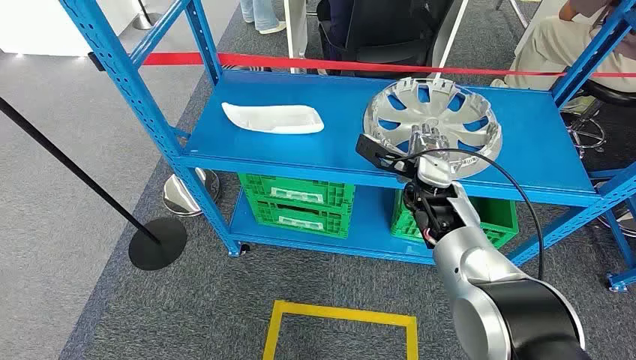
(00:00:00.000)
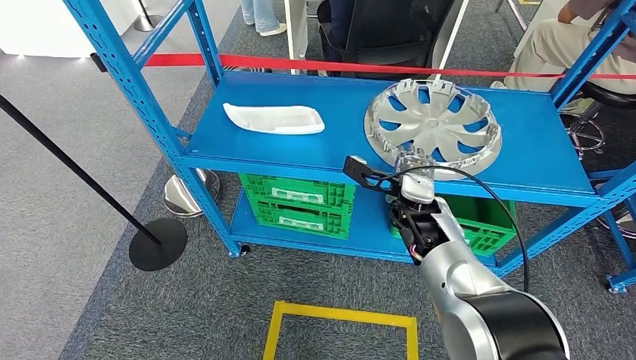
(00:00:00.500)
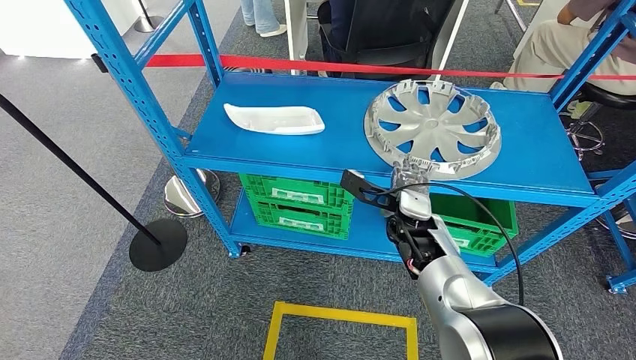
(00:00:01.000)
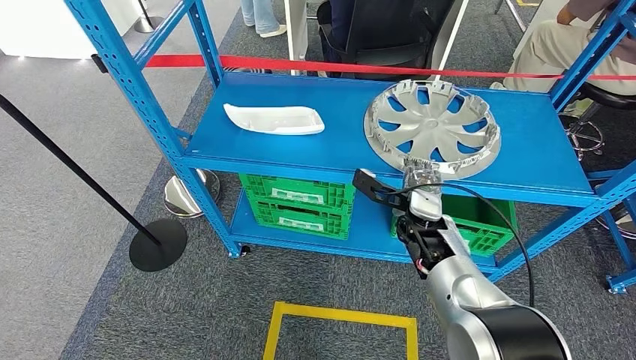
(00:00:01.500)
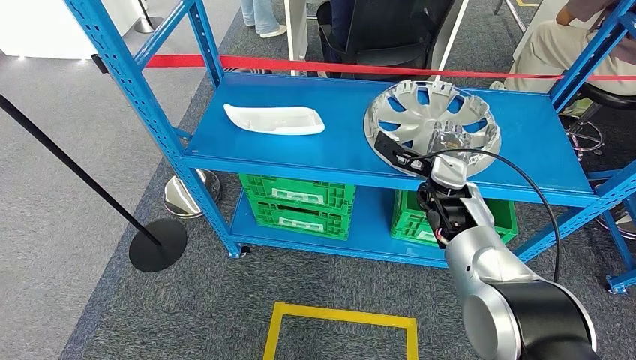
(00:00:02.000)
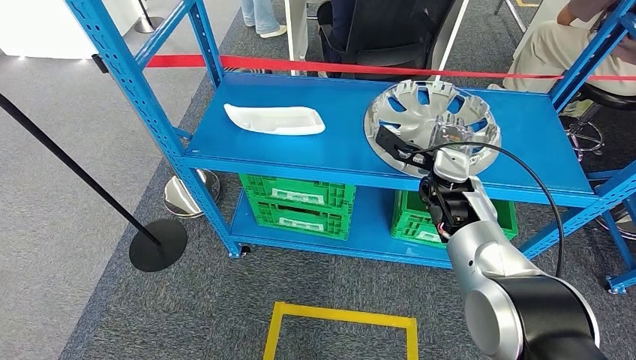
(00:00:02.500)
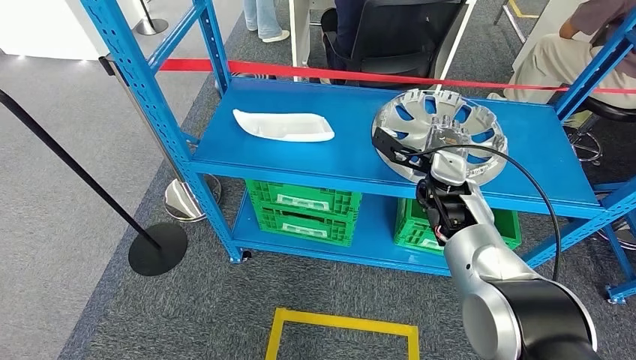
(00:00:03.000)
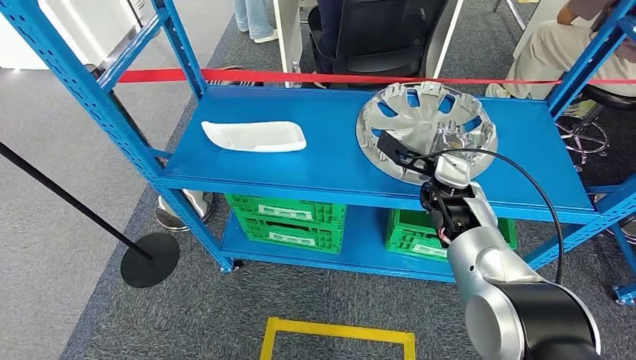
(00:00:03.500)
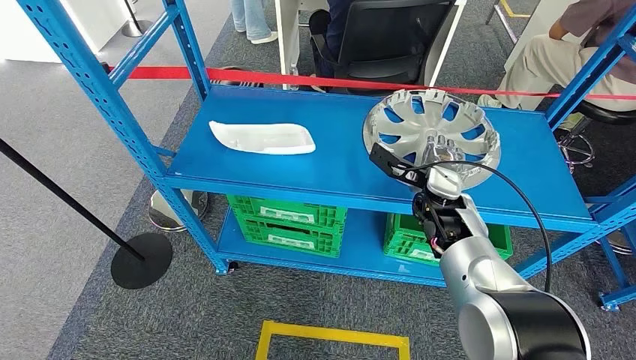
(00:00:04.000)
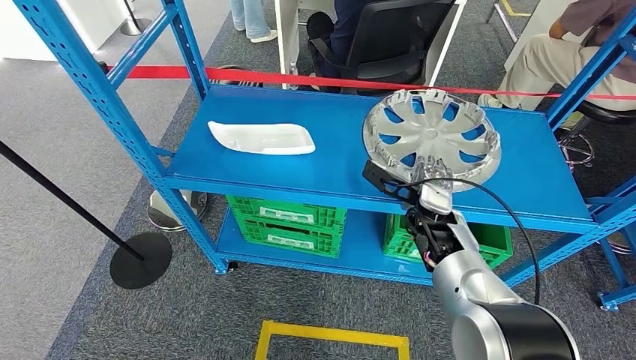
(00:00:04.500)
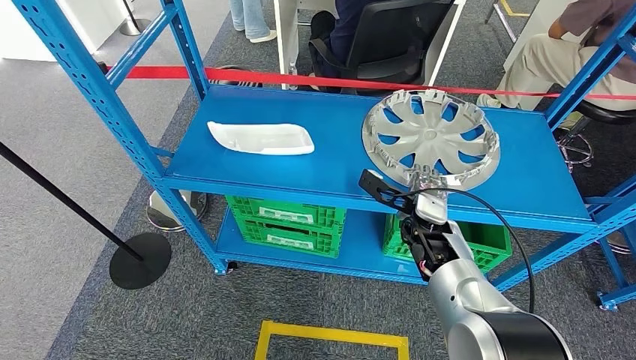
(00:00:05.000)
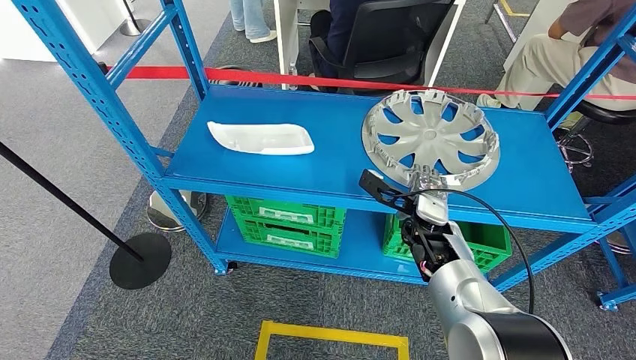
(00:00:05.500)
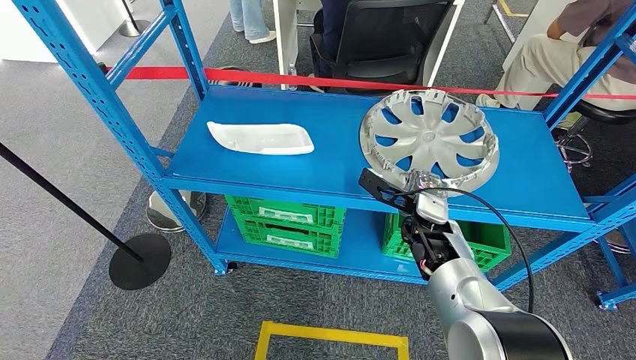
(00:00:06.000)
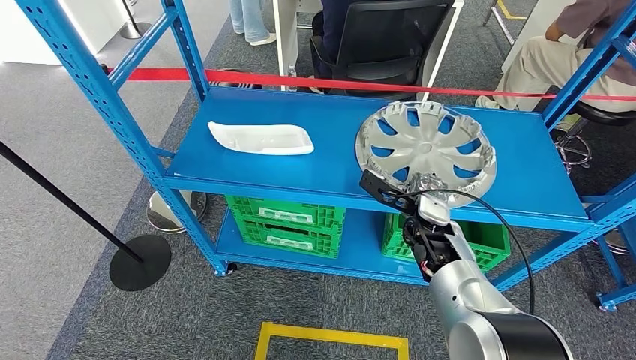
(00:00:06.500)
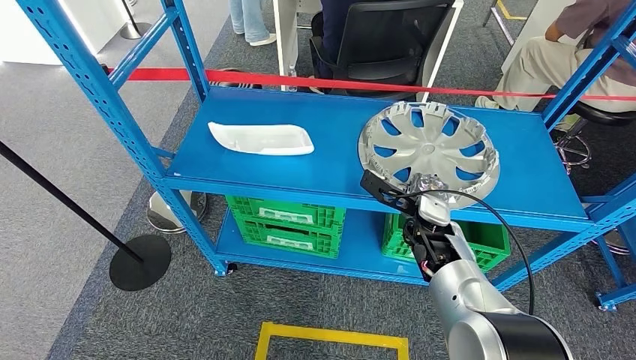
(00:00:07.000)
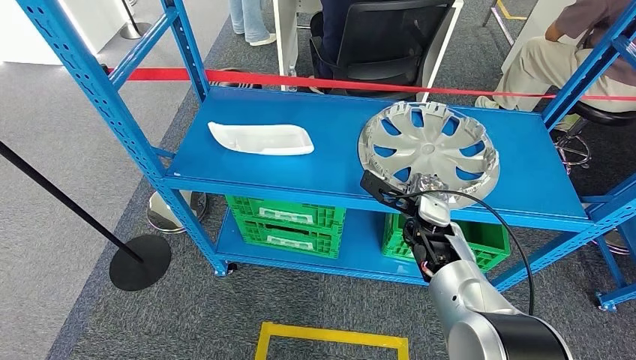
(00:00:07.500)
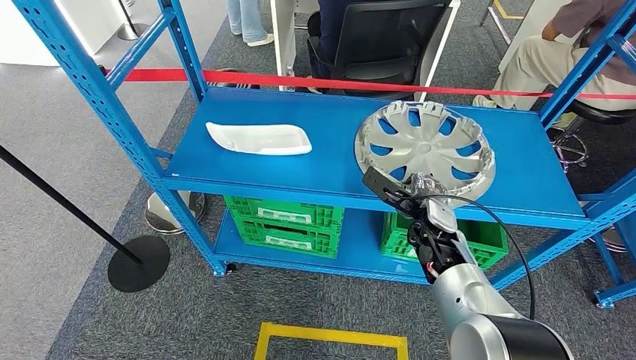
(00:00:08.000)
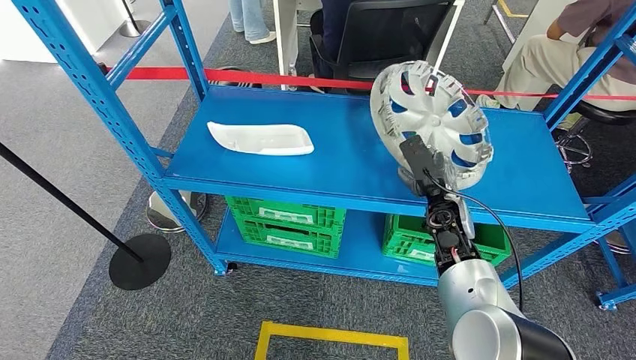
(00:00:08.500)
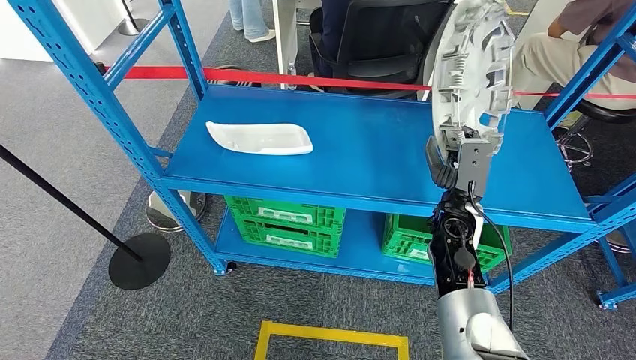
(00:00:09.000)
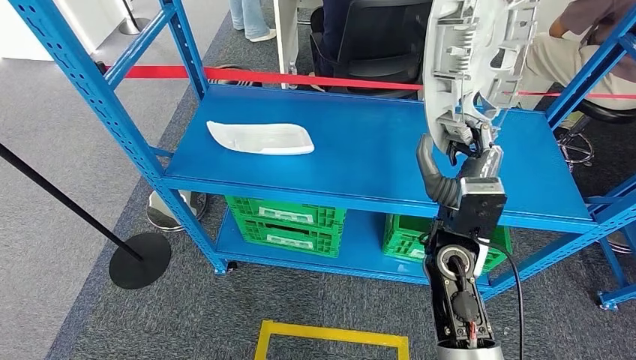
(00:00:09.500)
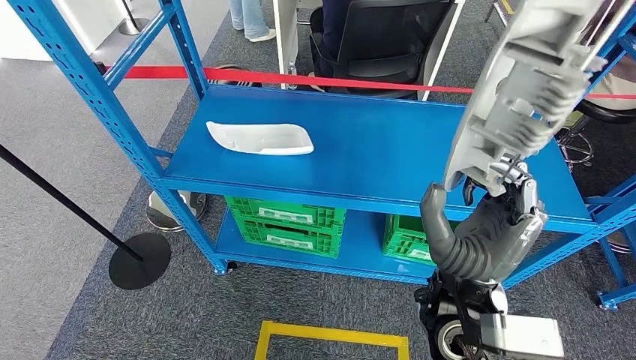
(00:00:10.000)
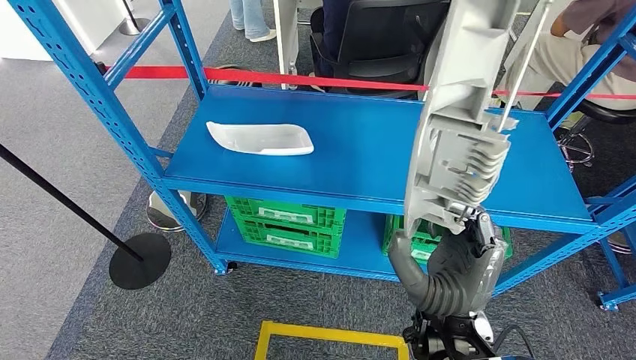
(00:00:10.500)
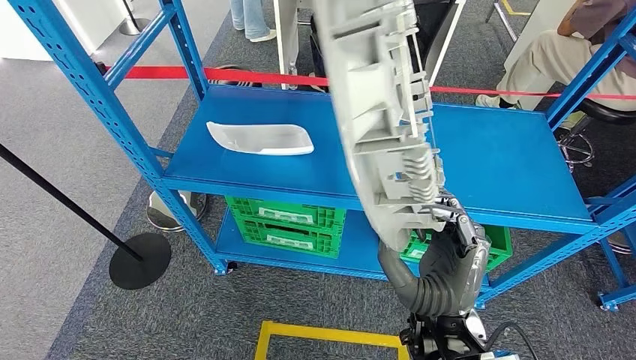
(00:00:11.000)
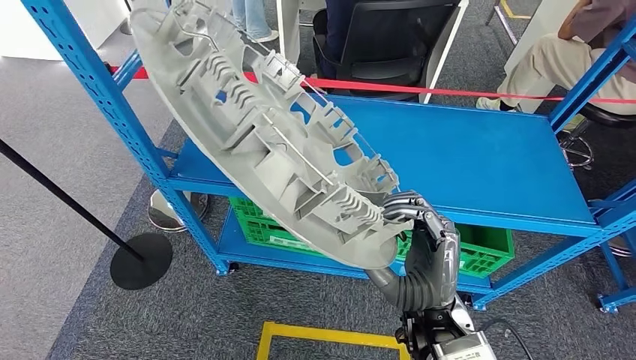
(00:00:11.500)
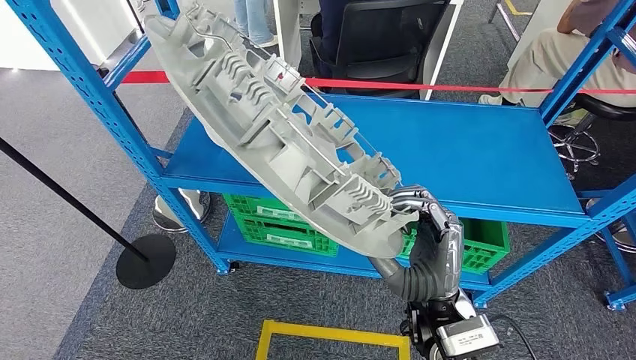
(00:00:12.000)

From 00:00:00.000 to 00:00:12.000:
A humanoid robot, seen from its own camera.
Step, from 00:00:00.000 to 00:00:11.000: Pick up the large material from the shelf.
From 00:00:04.000 to 00:00:06.000: The right hand moves roughly 5 cm.
From 00:00:06.000 to 00:00:08.000: The hands make only small movements.

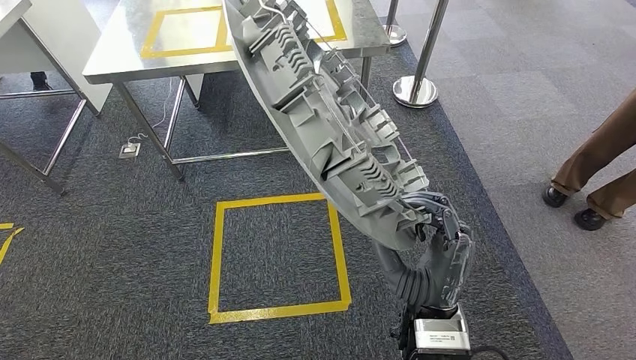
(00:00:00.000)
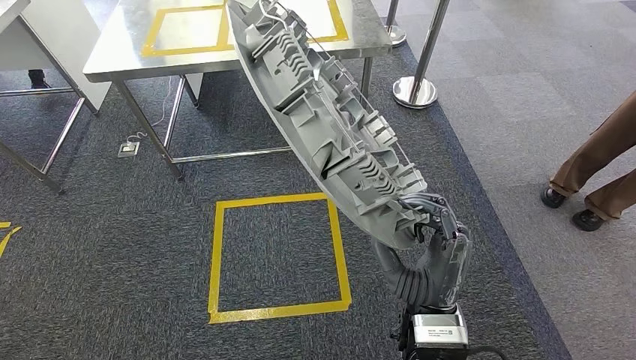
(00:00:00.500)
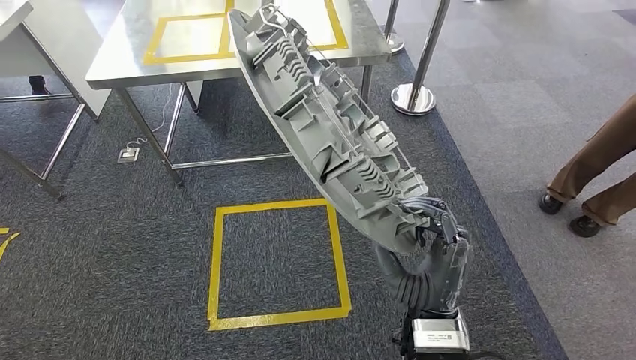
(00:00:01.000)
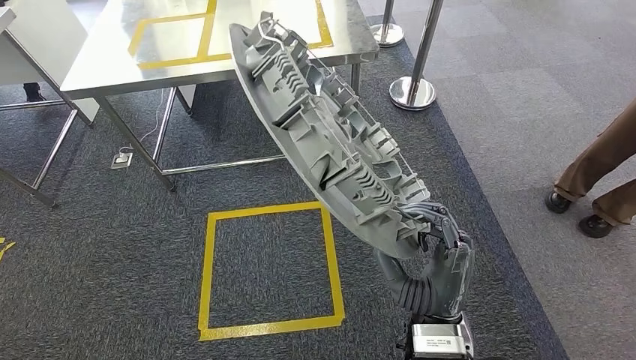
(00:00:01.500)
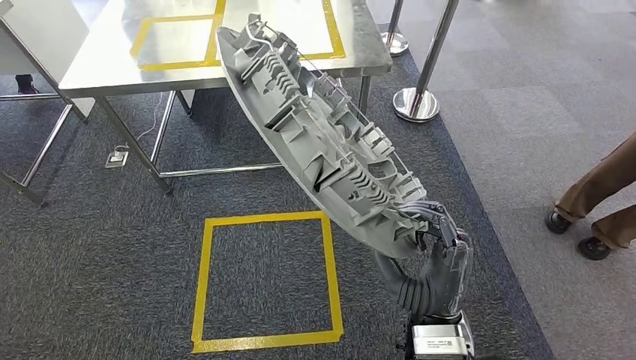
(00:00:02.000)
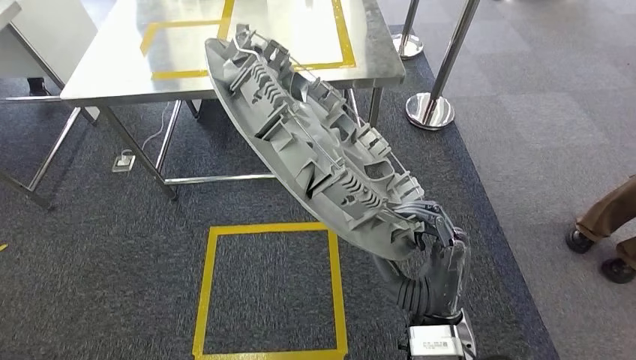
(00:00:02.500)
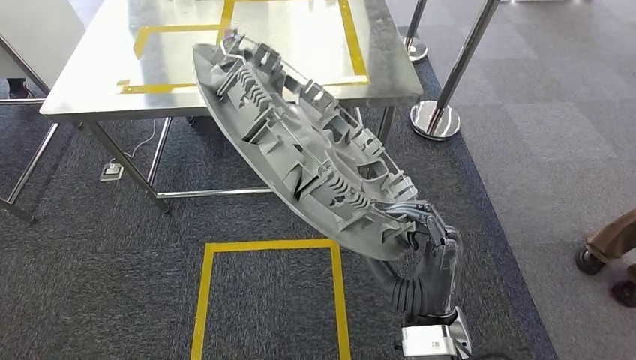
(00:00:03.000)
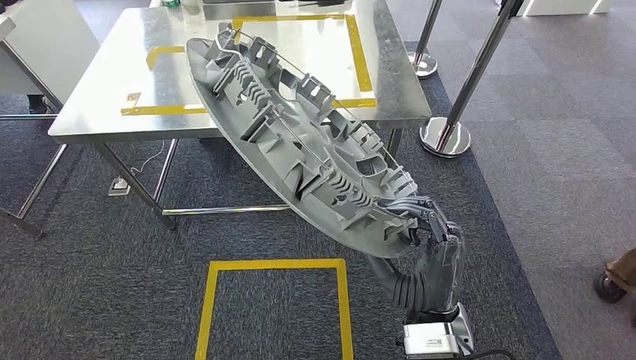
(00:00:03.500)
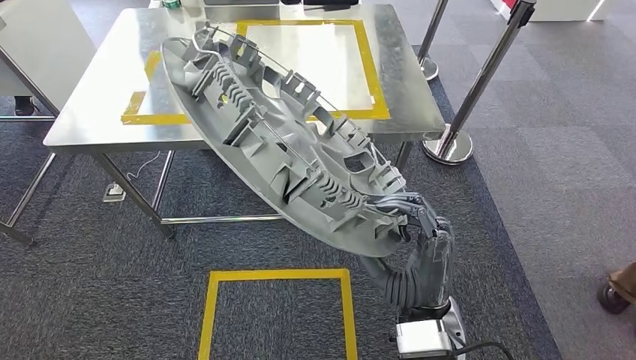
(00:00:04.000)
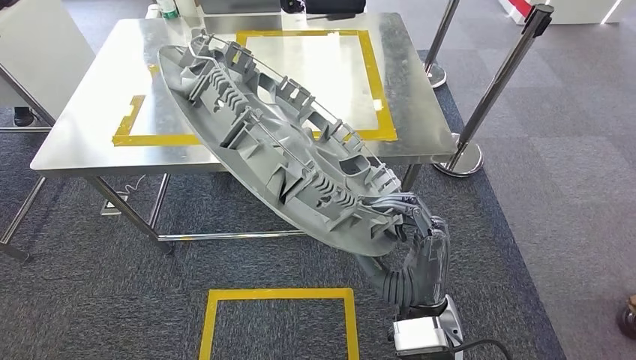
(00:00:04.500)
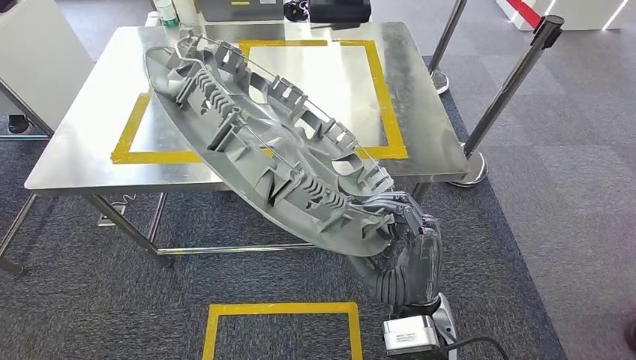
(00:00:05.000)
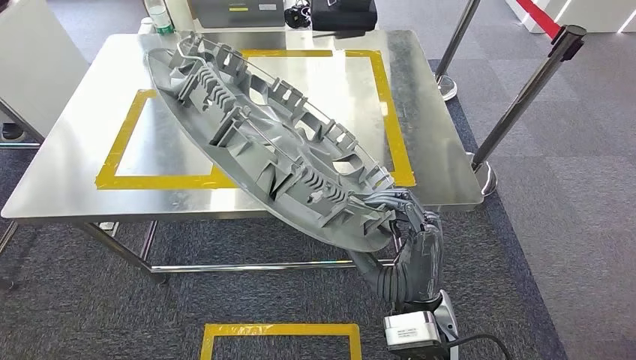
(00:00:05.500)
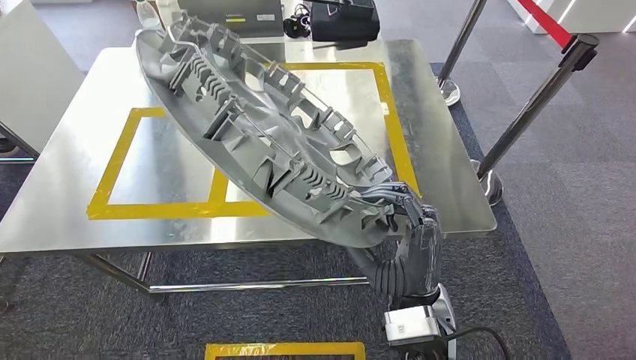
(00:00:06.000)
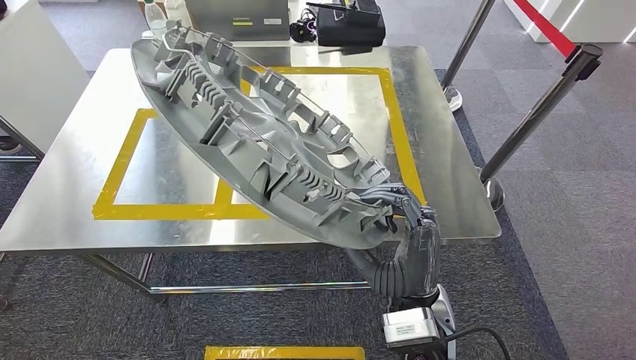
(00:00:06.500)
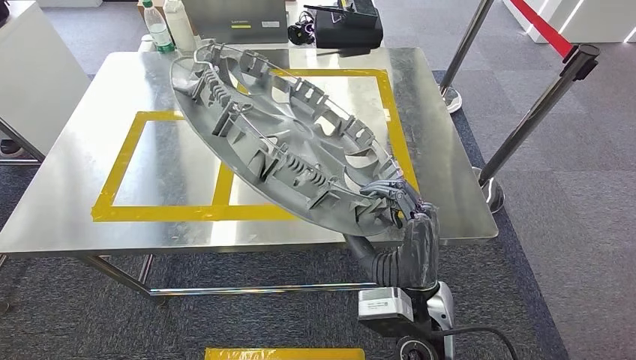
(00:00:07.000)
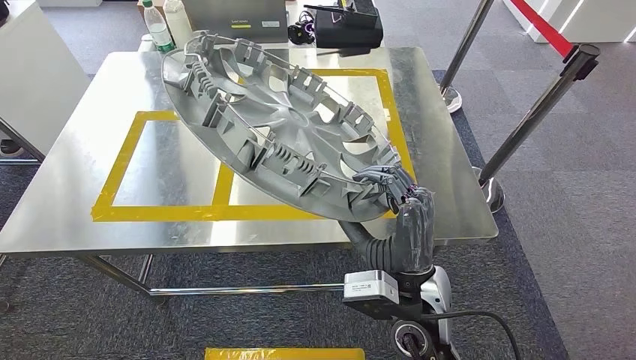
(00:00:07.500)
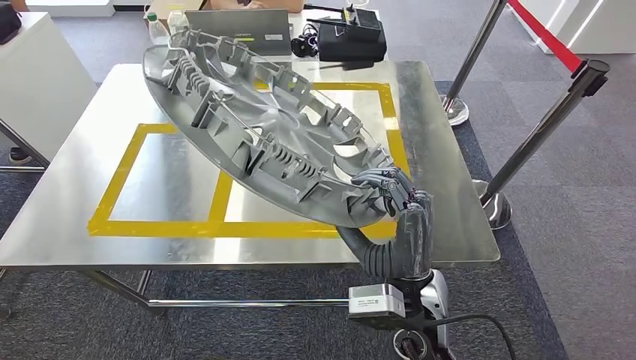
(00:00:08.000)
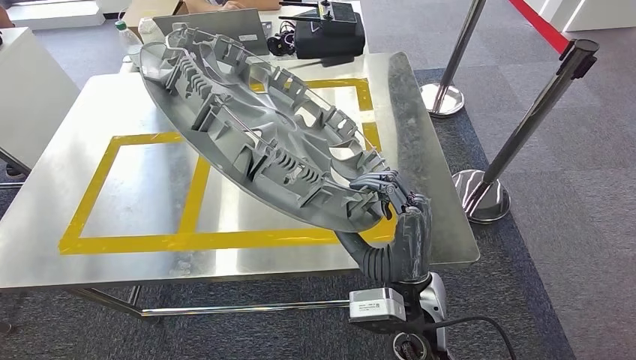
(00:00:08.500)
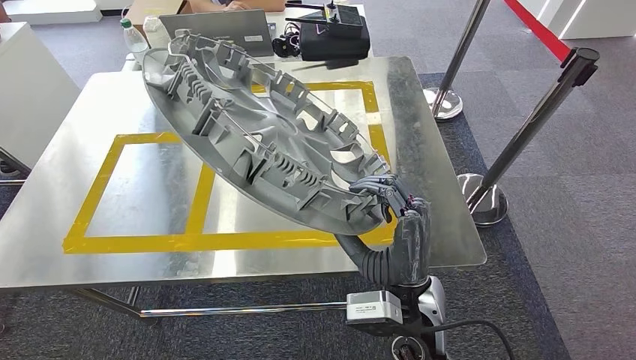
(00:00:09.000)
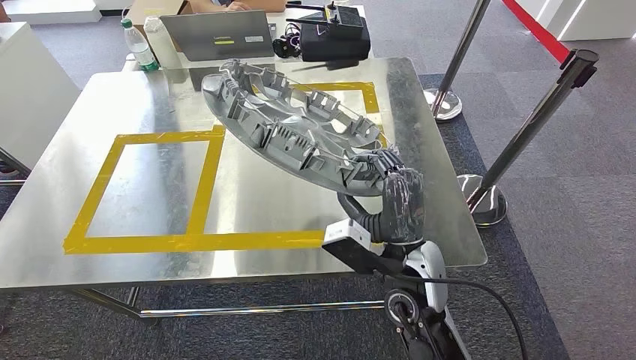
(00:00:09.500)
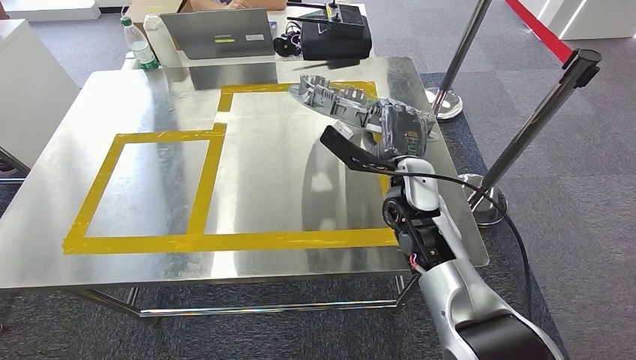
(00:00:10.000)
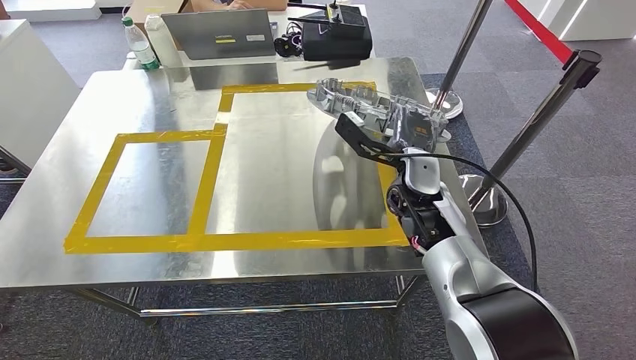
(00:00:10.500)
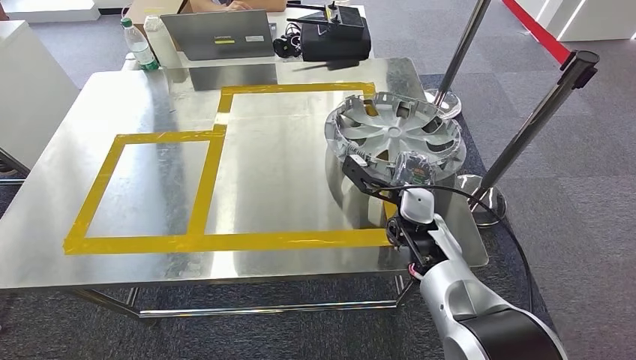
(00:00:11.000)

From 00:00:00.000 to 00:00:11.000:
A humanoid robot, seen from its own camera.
Step, from 00:00:00.000 to 00:00:05.500: Move the large material to the front of the workbench.
